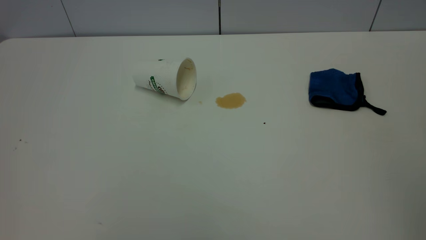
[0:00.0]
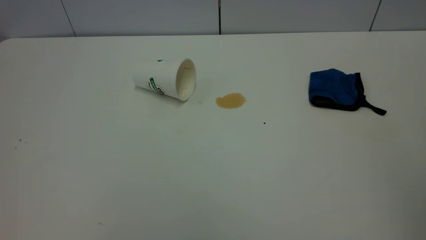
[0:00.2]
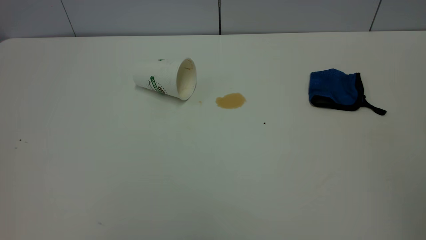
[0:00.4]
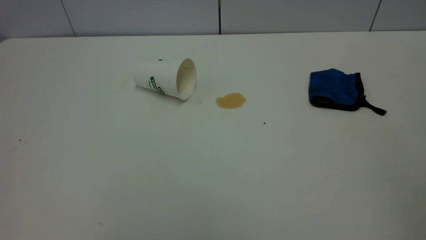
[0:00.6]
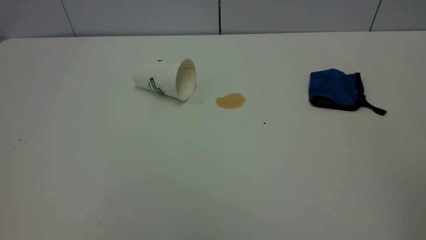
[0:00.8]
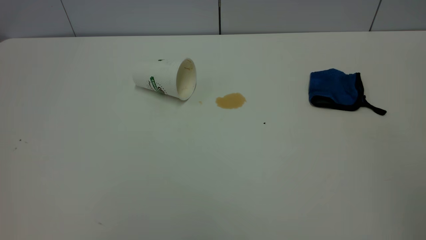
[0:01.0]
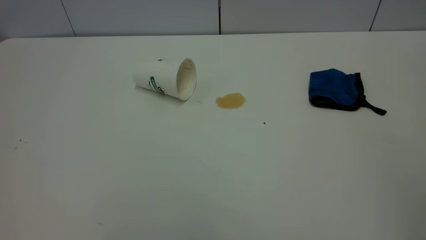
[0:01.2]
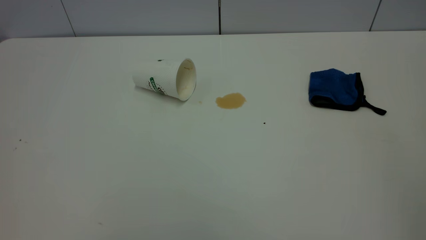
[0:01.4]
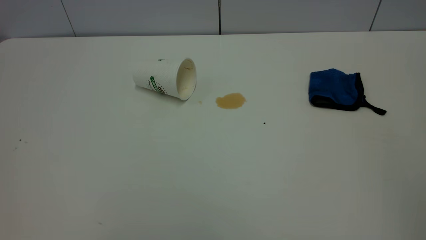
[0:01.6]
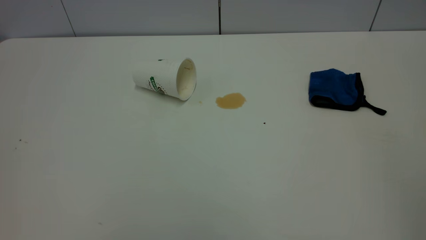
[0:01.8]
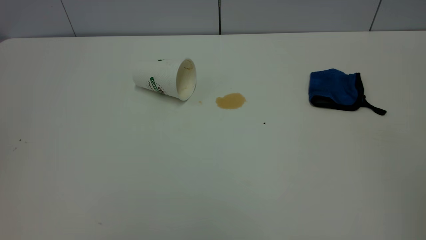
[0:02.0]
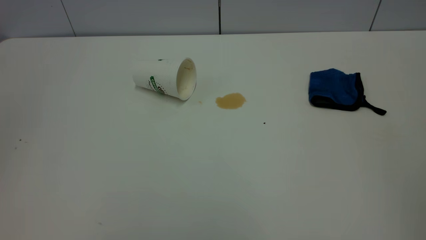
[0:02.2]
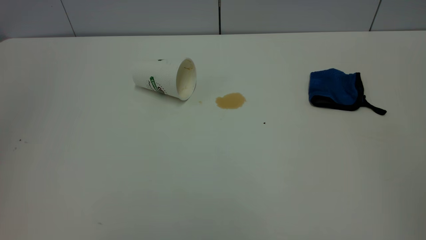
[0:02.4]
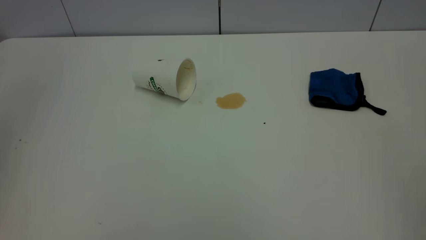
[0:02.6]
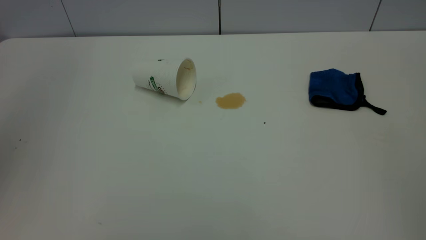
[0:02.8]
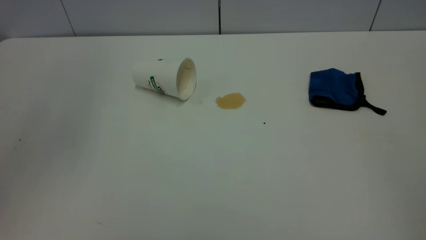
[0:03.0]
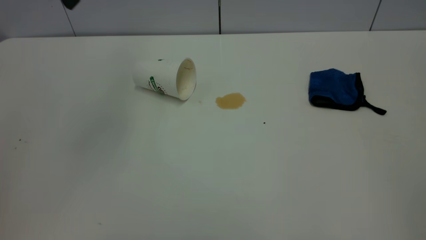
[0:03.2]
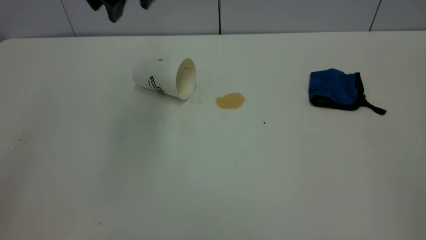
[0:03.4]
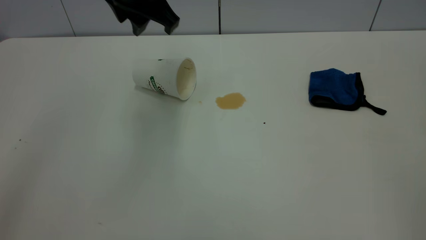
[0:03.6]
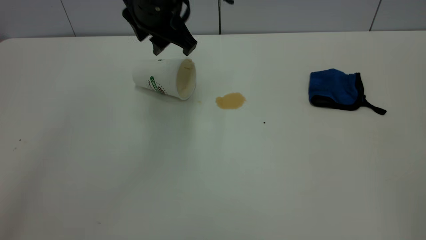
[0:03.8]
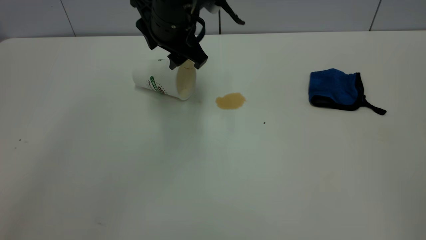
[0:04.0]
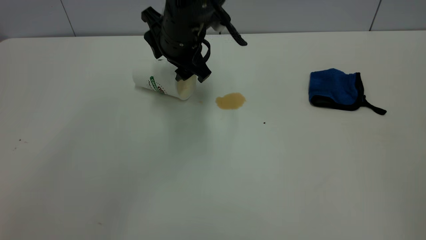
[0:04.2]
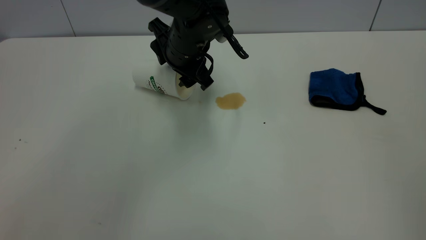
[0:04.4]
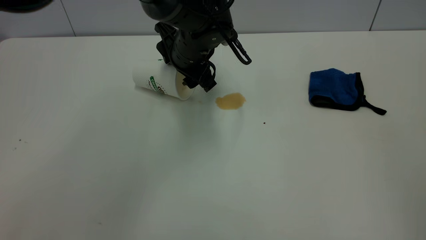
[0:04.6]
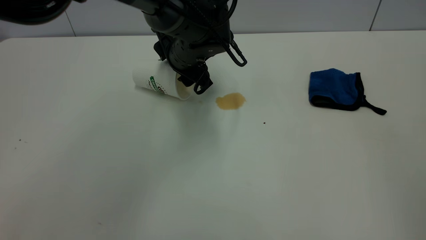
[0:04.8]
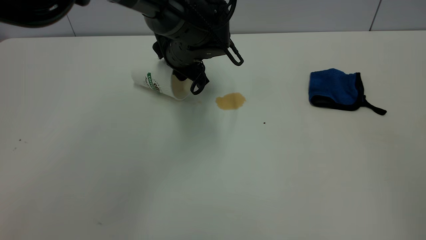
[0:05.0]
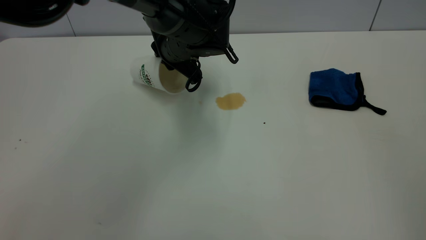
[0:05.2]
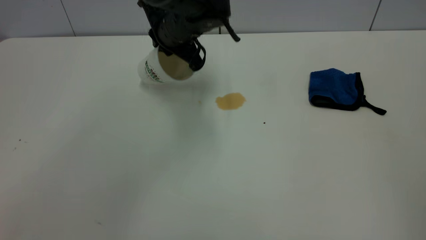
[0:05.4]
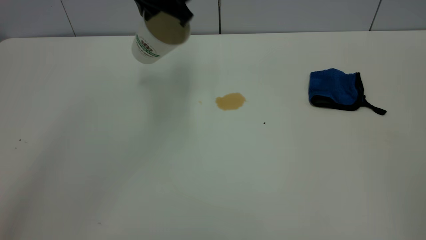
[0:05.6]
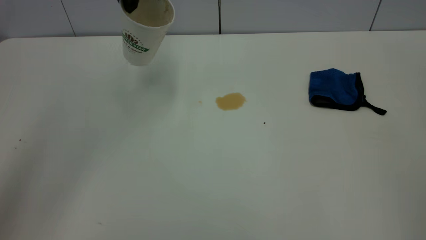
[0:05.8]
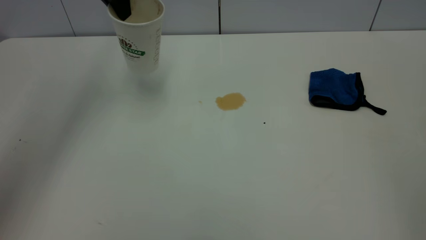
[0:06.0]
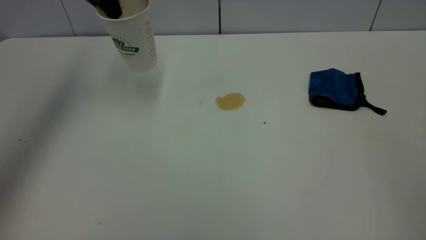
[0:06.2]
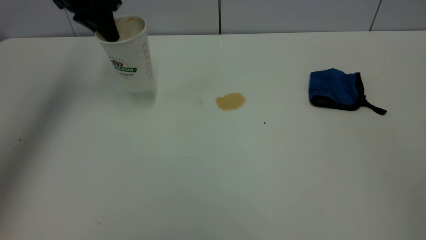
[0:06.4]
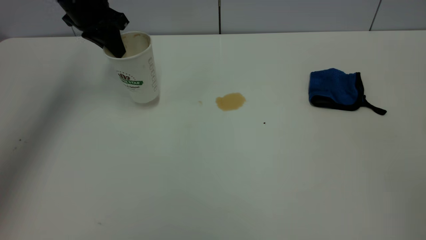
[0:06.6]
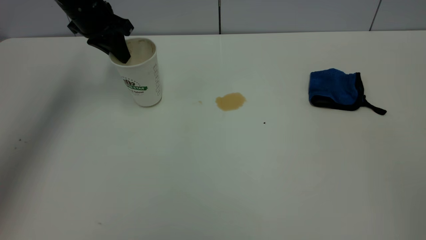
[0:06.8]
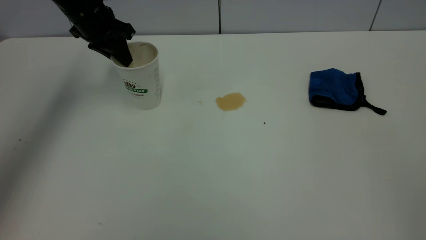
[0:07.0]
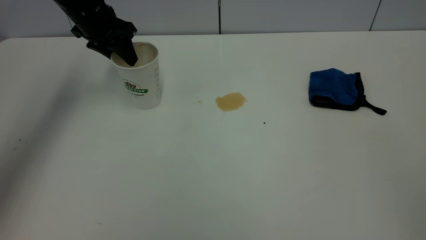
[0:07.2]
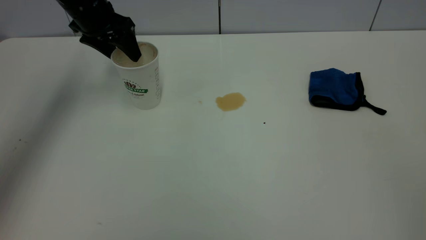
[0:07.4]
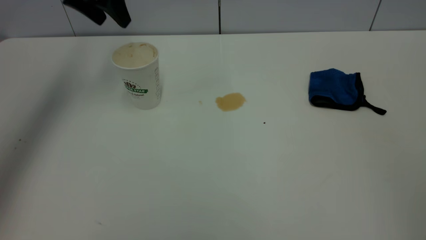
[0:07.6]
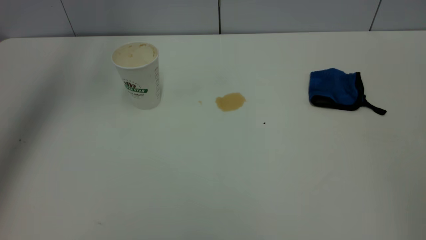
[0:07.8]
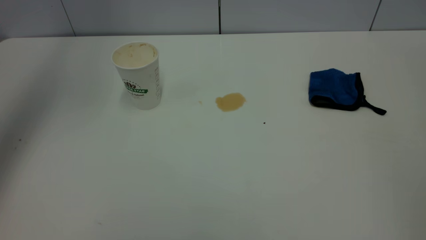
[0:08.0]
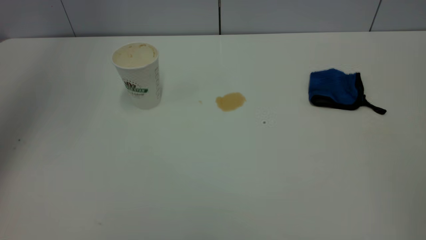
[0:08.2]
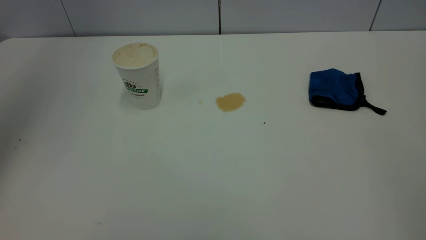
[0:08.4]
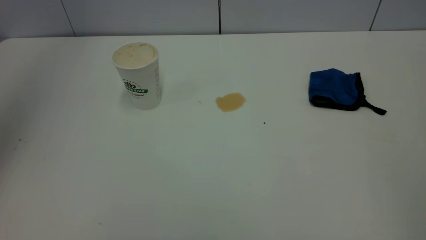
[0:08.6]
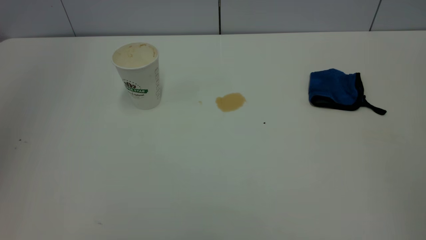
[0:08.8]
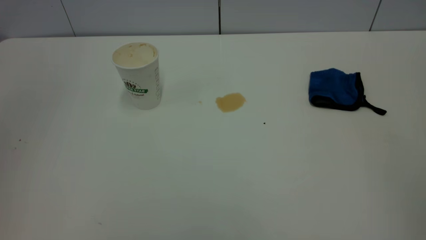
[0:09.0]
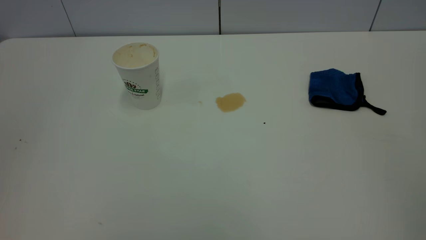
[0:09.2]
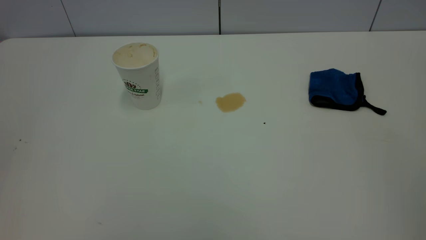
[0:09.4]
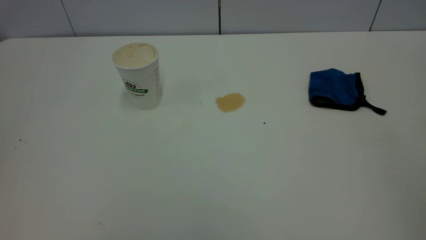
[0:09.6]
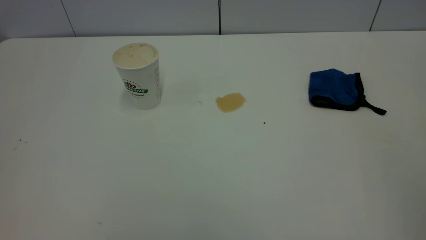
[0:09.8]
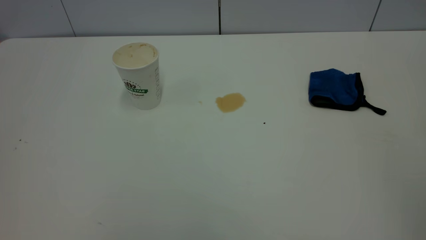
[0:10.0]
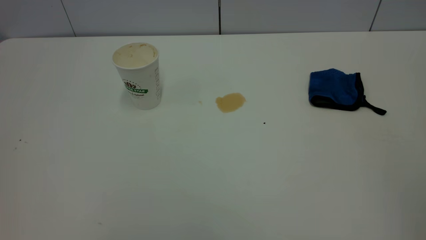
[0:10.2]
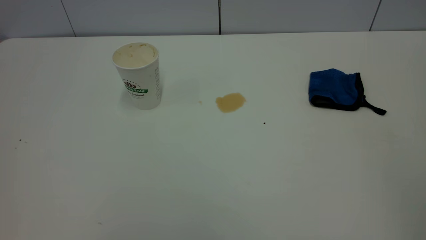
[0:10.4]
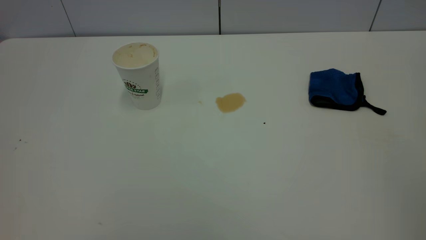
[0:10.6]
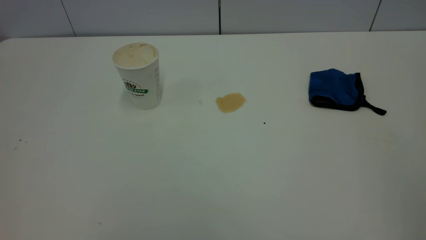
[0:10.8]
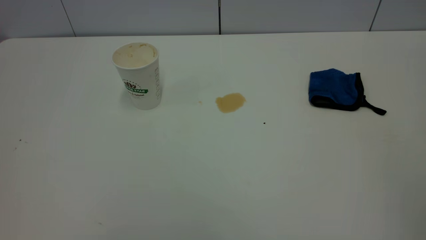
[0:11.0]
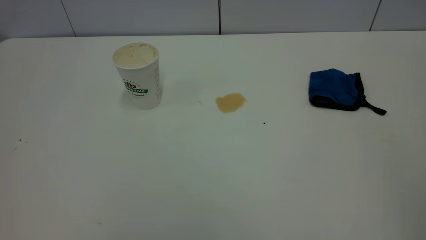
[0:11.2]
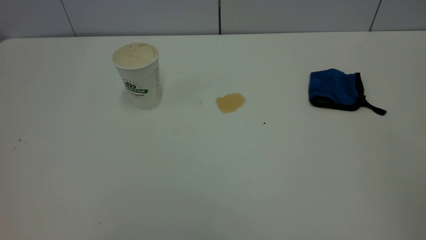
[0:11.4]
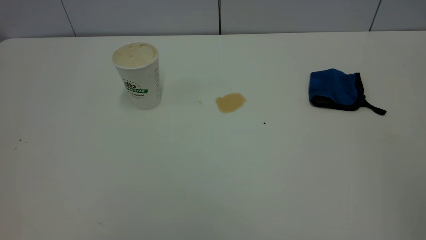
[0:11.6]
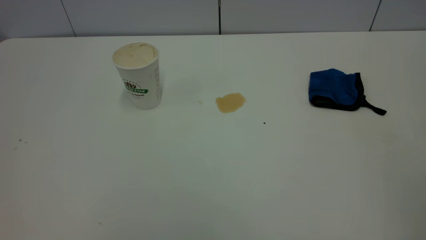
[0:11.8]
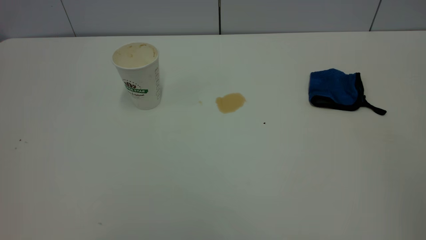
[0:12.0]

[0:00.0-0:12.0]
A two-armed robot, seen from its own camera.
Task of the whole recording: the left gripper pick up the fallen cup and place it upright, the right gripper grasp the blue rag and wipe the tea stain on the table, the right gripper put the blue rag back in its original position.
Step, 0:00.0 to 0:07.4: Stand the paper cup upright.
0:00.0 to 0:01.6: Both grippers stay put.
0:03.0 to 0:04.4: The left gripper moves downward, to the right and forward, some 30 cm, and opens up.
0:04.4 to 0:06.0: The left gripper heads upward and to the left, covering roughly 20 cm, and closes its fingers.
0:06.0 to 0:07.6: The left gripper moves approximately 10 cm downward and comes back, and opens up.
0:07.6 to 0:09.0: The left gripper shifts about 30 cm backward, and closes.
0:10.4 to 0:12.0: The two grippers keep their place.

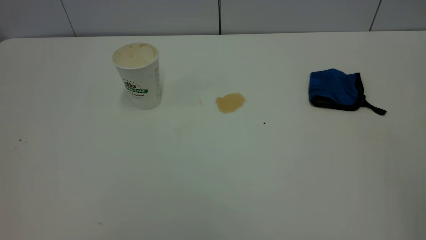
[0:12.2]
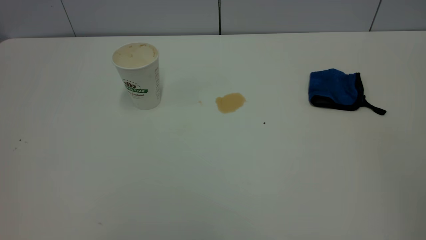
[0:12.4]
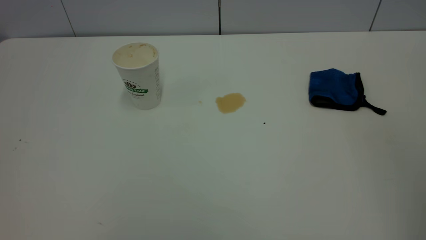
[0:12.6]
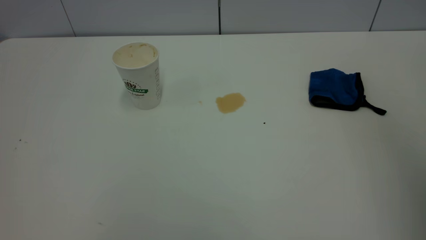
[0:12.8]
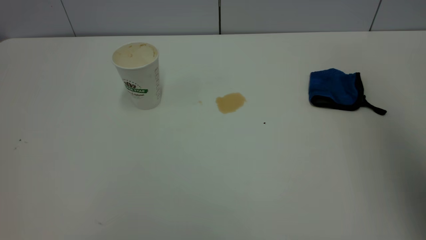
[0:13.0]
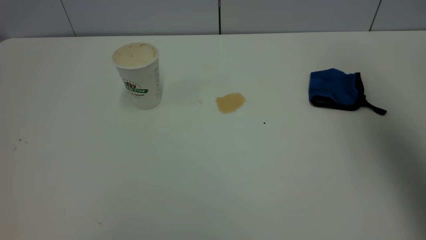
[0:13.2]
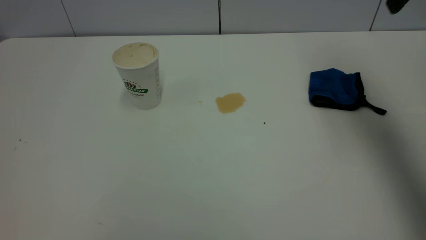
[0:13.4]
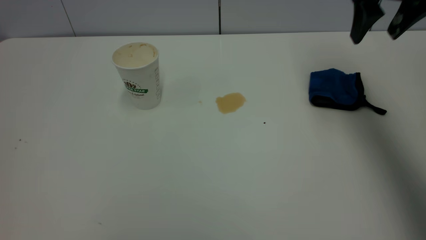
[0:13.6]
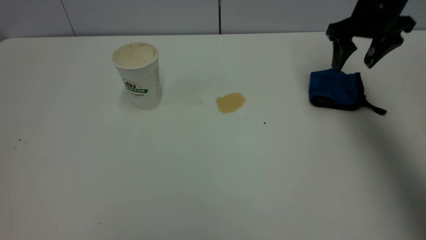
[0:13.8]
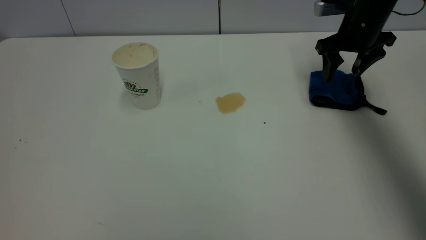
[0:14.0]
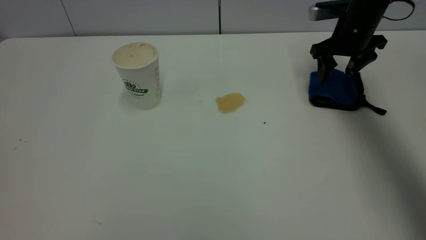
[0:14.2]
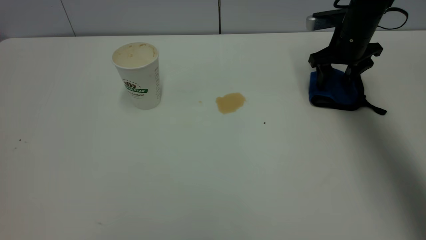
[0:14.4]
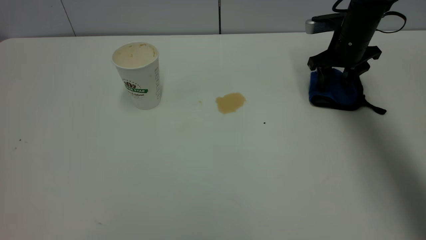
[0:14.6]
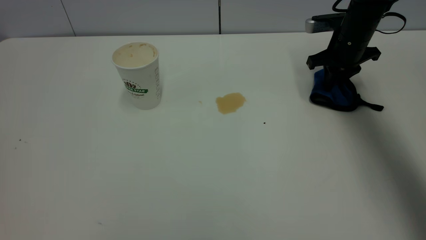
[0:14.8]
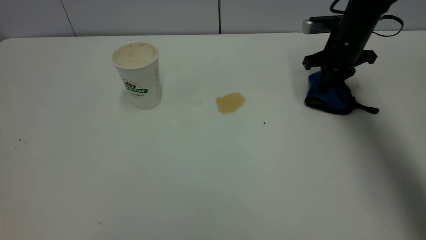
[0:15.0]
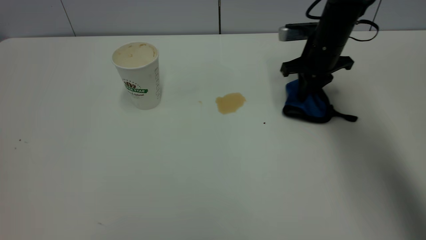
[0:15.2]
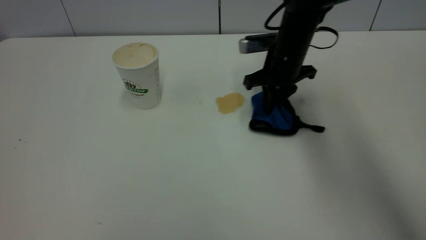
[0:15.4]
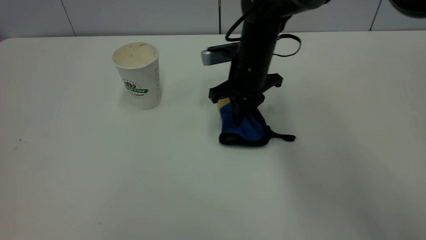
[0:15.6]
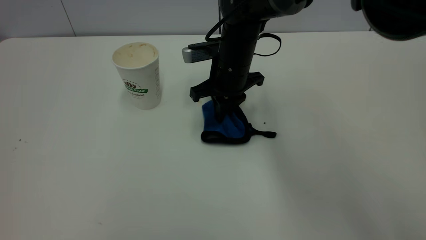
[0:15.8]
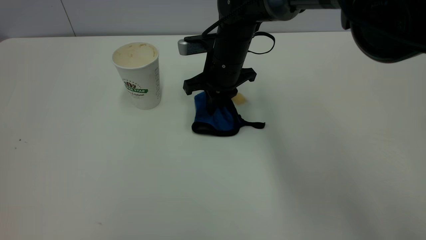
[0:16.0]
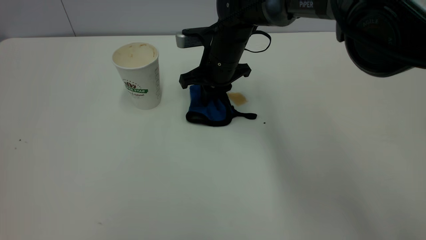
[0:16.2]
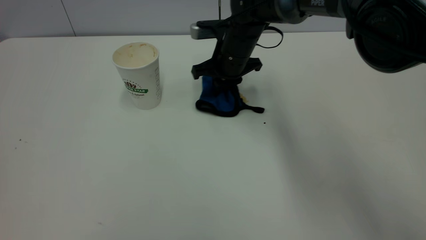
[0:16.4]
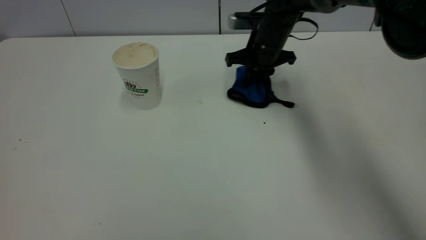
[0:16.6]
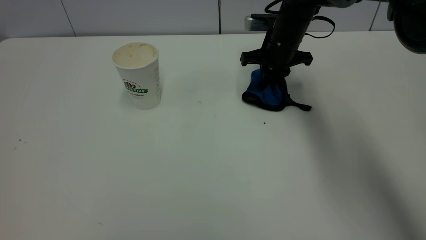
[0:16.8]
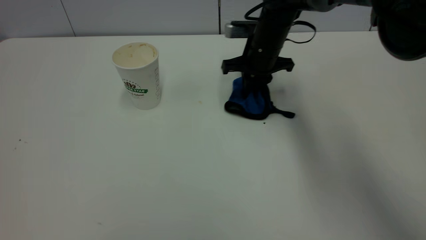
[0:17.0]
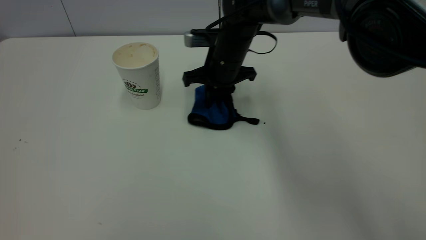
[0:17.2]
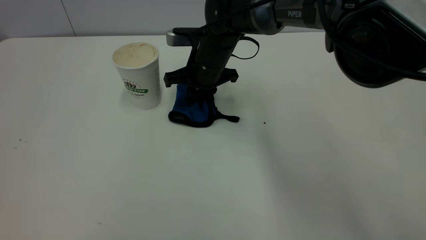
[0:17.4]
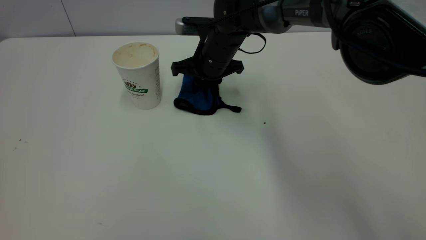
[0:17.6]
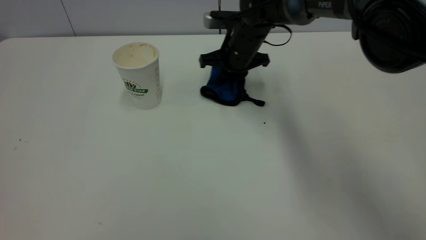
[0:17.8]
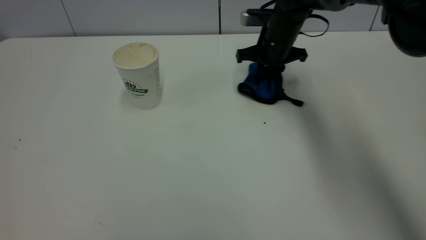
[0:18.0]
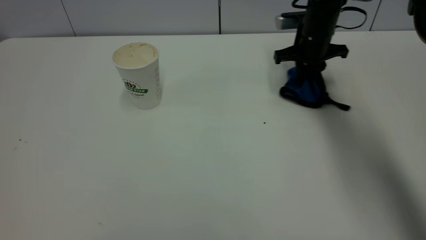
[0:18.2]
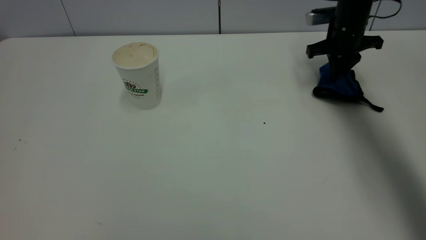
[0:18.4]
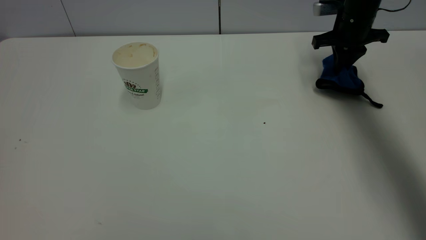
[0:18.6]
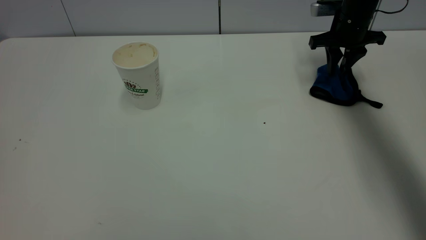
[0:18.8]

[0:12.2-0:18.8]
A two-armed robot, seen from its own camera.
Task of the whole recording: the left gripper pick up the fallen cup and place it upright, the right gripper grasp the blue rag and wipe the tea stain on the table, the right gripper put the blue rag back in its original position.
0:12.2 to 0:13.8: The right gripper goes roughly 50 cm forward, and opens its fingers.
0:13.8 to 0:15.4: The right gripper goes some 15 cm to the left and downward, and closes up.
0:15.4 to 0:17.2: The right gripper swings left and right, about 10 cm each way, with 2 reversals.
0:17.2 to 0:18.8: The right gripper shifts approximately 25 cm to the right, and opens up.
